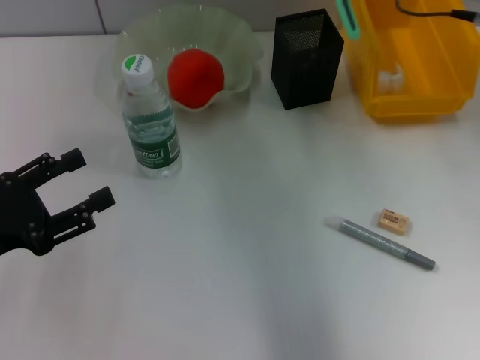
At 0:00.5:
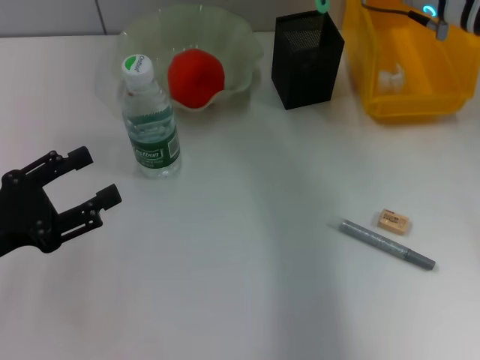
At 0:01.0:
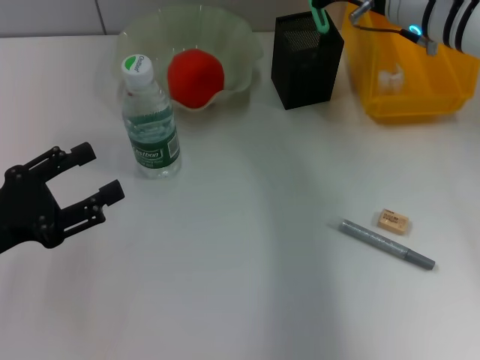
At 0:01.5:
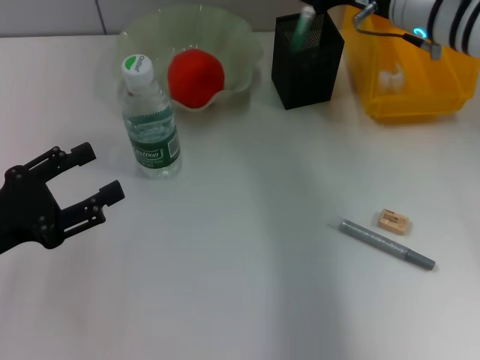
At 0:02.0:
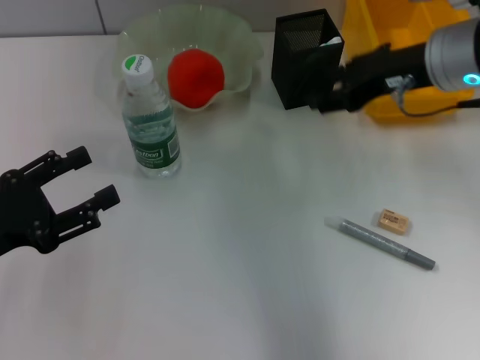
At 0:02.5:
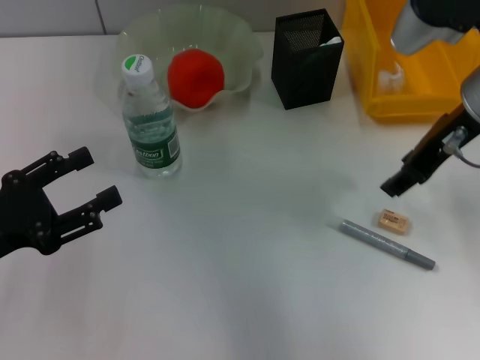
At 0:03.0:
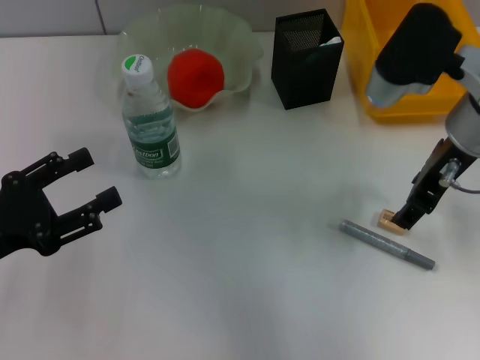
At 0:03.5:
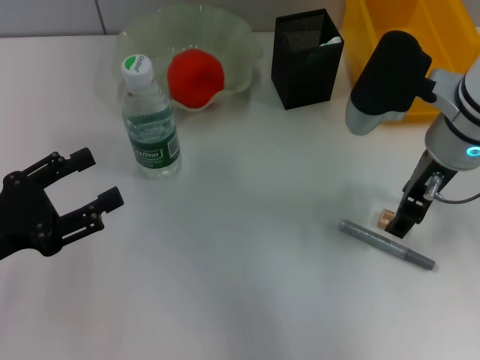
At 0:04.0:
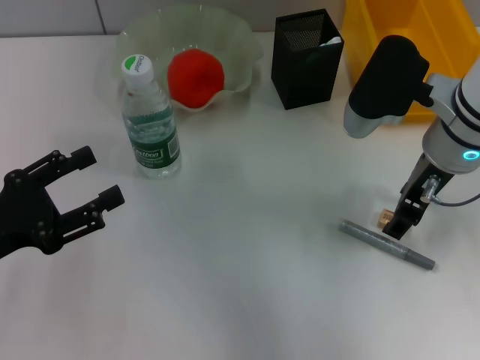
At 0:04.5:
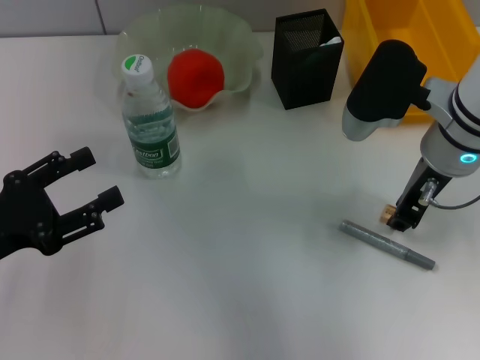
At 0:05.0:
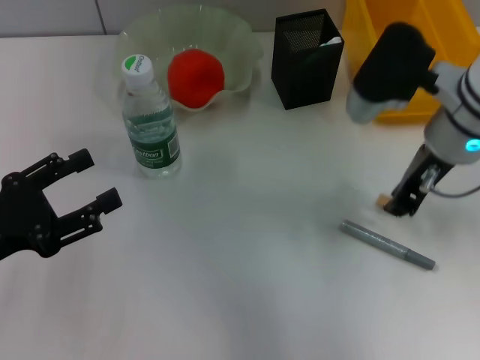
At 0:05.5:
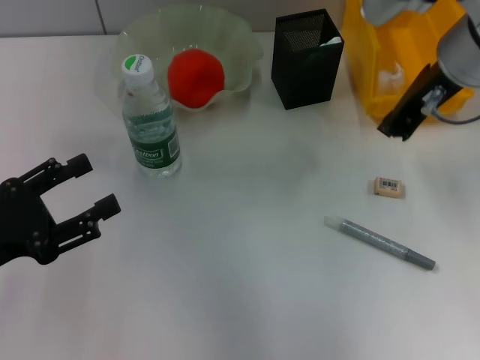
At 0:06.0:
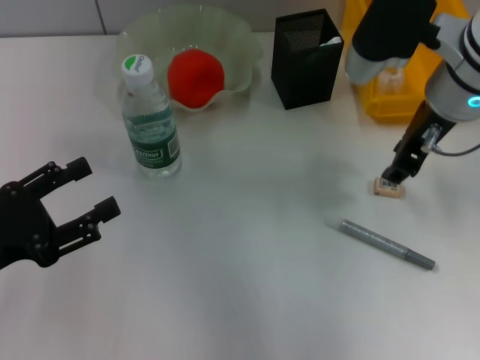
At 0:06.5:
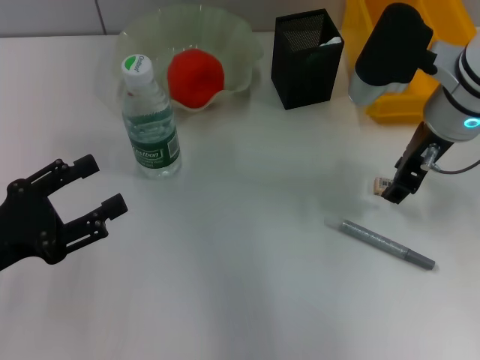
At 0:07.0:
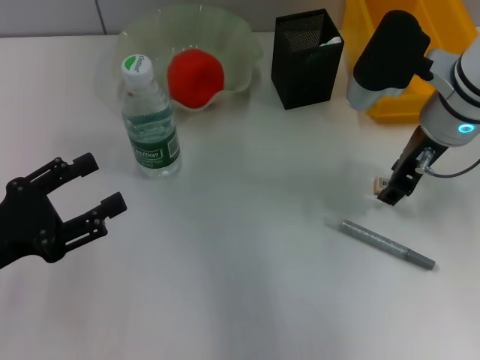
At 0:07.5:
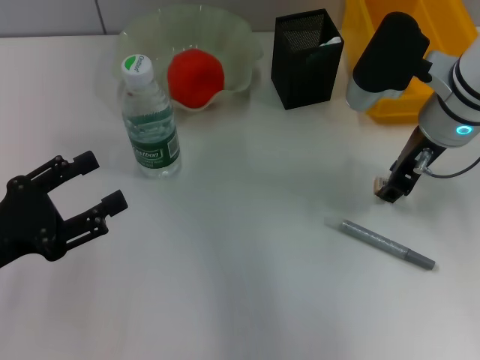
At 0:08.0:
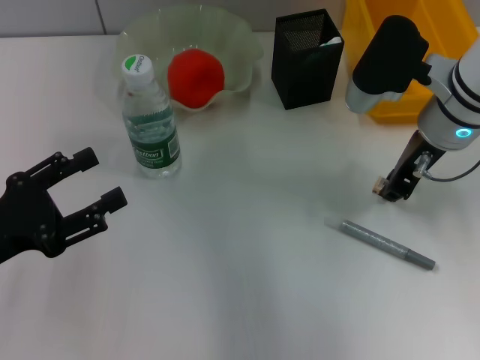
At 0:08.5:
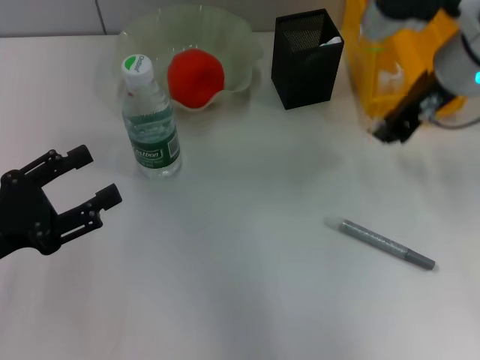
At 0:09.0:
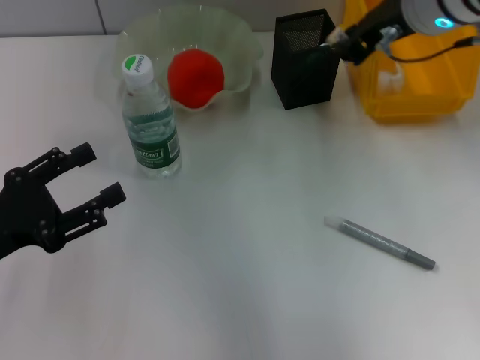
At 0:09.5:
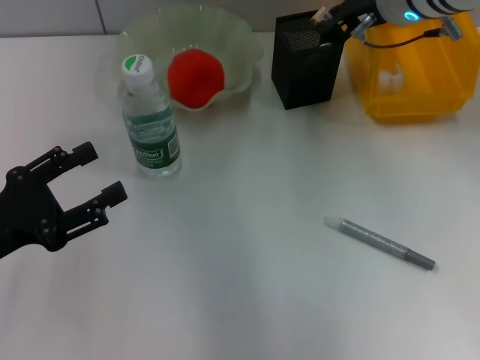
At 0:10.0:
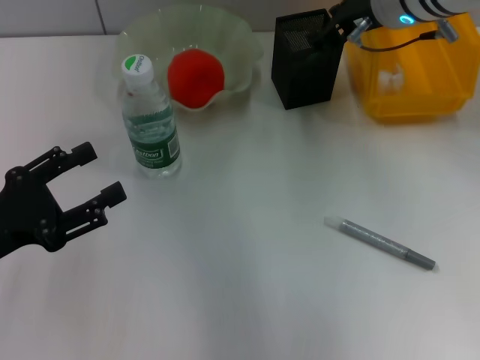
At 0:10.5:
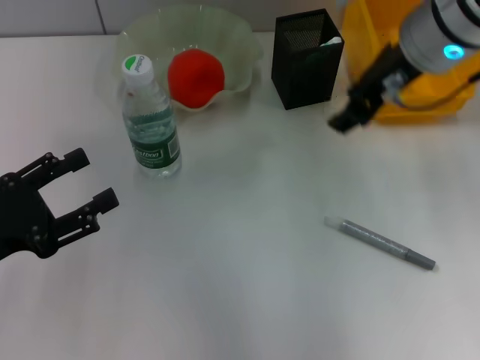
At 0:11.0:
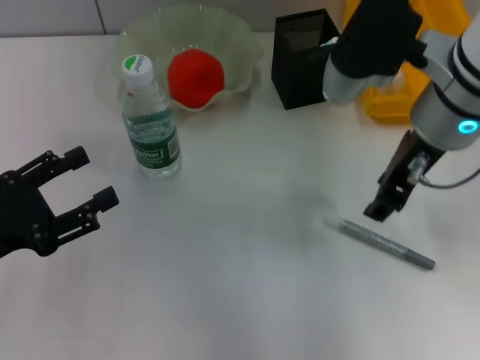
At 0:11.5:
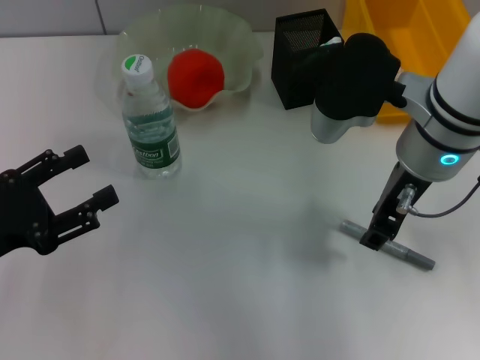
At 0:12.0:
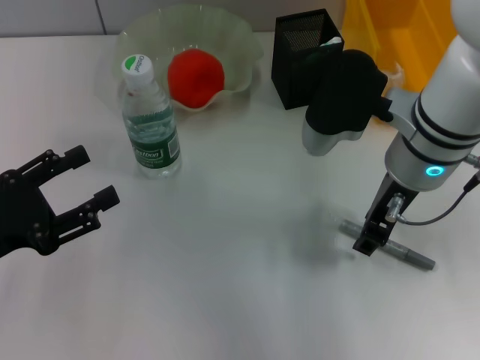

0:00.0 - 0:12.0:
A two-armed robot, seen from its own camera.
Step, 0:00.0 - 0:01.5: Place the blue utility knife into the pen holder with the right hand.
Step, 0:02.0 - 0:08.0: Grab the eraser with the right hand.
Step, 0:08.5 - 0:10.0: Put the eraser into the pen holder with the right hand.
0:00.0 - 0:02.0: The right gripper opens.
0:02.0 - 0:04.0: The right gripper moves roughly 5 cm.
0:04.0 - 0:06.0: The right gripper closes its fingers.
0:06.0 - 0:08.0: The right gripper opens and closes again.
0:08.0 - 0:10.0: The right gripper goes about 10 cm forward and upward.
0:10.0 - 0:12.0: The right gripper moves backward, roughly 10 cm.

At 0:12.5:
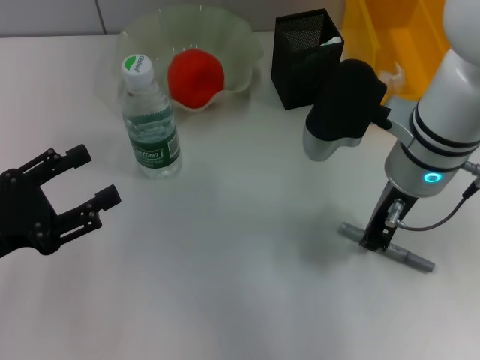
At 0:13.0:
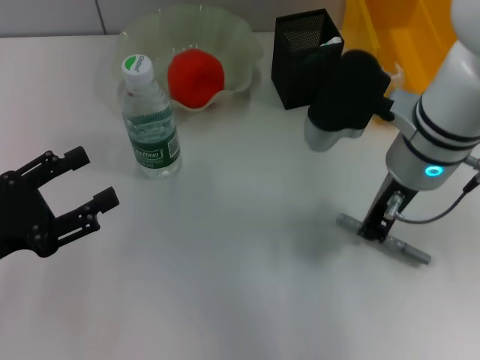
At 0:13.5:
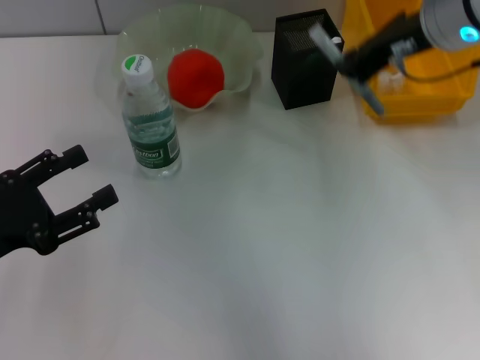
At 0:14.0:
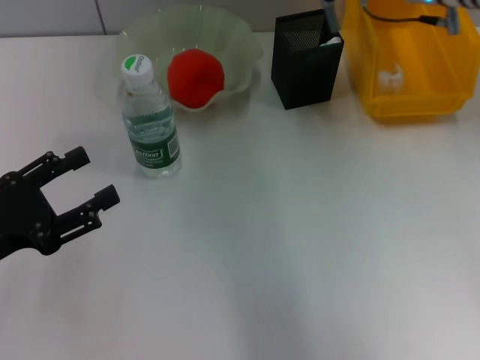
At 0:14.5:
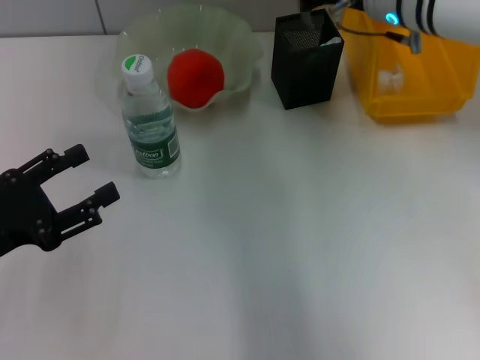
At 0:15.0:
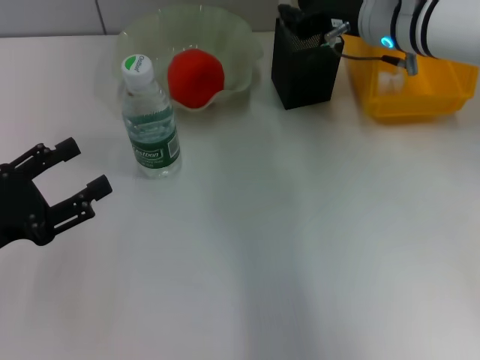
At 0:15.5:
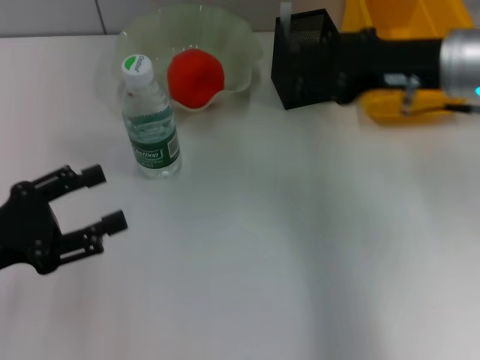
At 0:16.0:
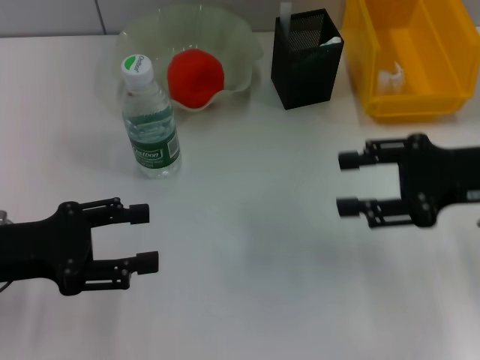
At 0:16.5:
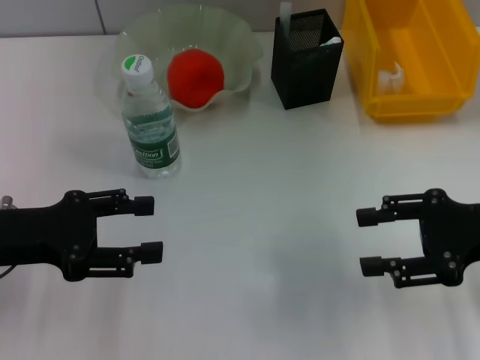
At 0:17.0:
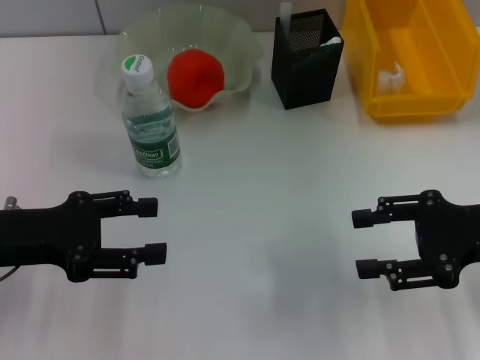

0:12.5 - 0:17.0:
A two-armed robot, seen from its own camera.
Step, 0:13.0 - 0:15.0: Place the gray glue into the pen holder with the right hand.
0:12.5 - 0:14.5: The right gripper travels forward by roughly 10 cm.
0:14.5 - 0:17.0: The left gripper ends up approximately 5 cm from where it was. Meanwhile the right gripper heads backward and to the right, covering about 25 cm, and opens.

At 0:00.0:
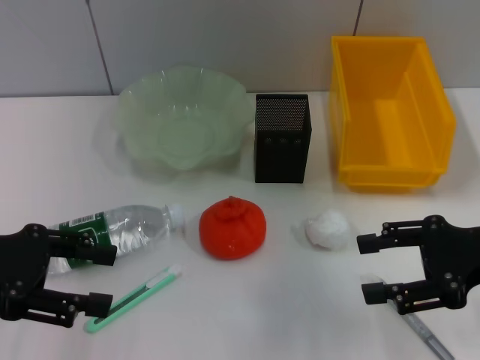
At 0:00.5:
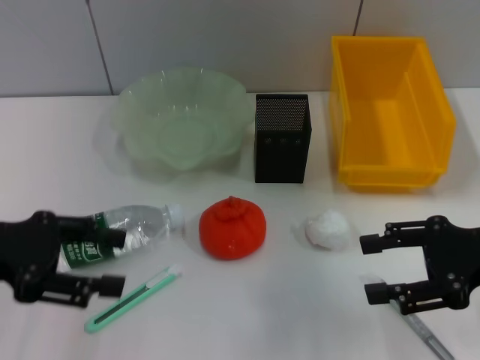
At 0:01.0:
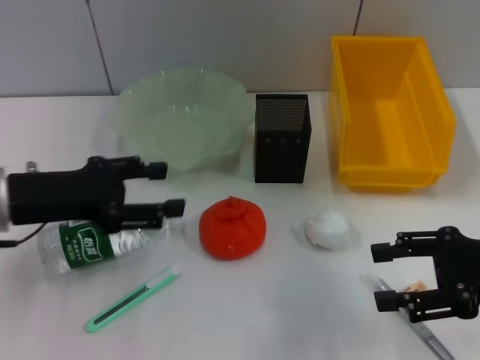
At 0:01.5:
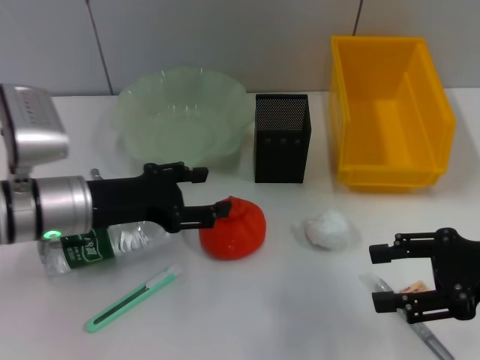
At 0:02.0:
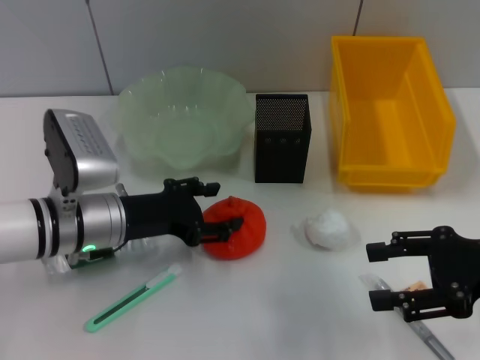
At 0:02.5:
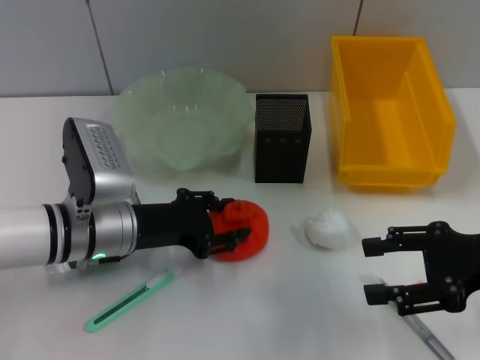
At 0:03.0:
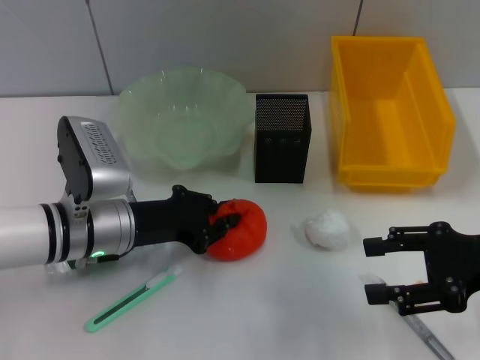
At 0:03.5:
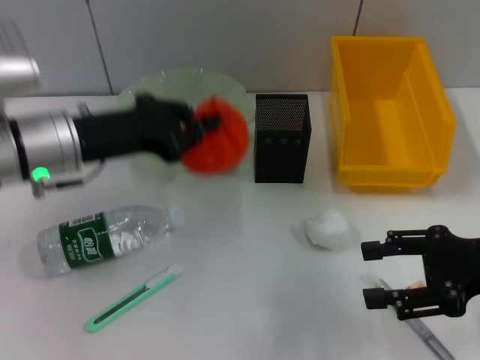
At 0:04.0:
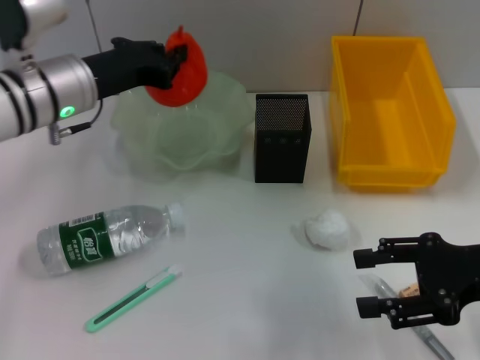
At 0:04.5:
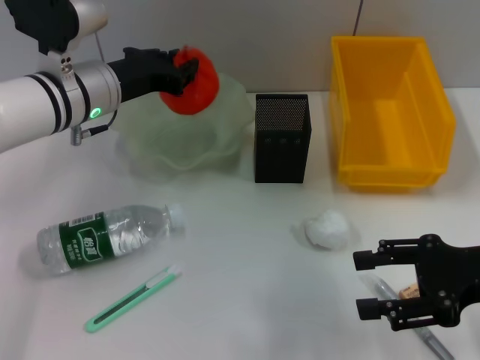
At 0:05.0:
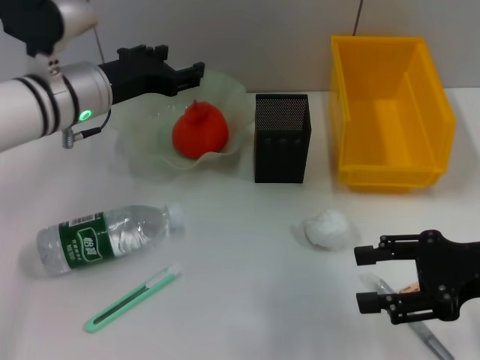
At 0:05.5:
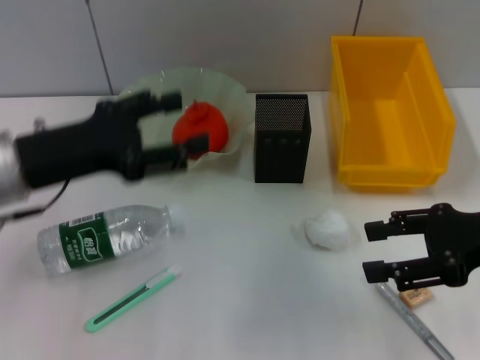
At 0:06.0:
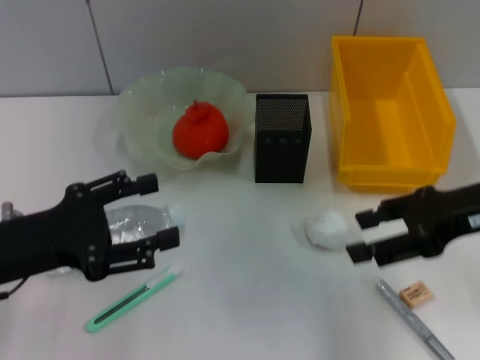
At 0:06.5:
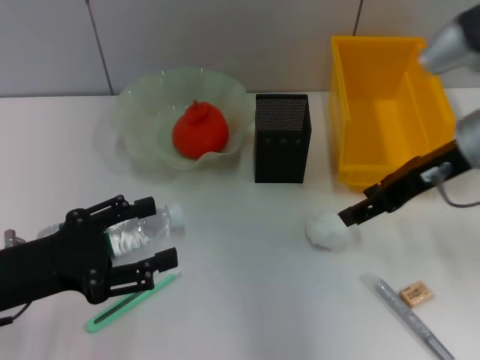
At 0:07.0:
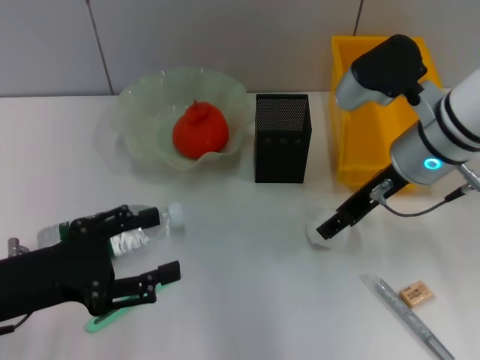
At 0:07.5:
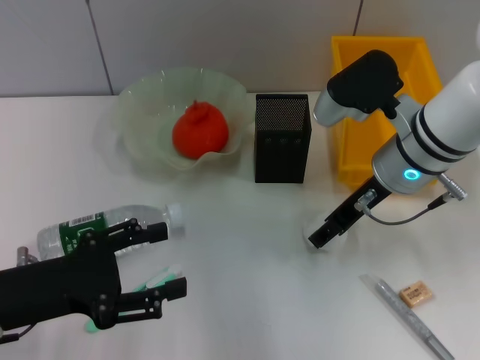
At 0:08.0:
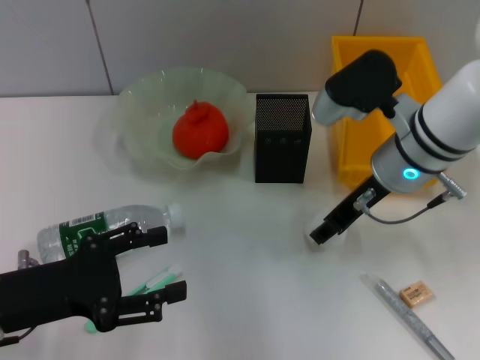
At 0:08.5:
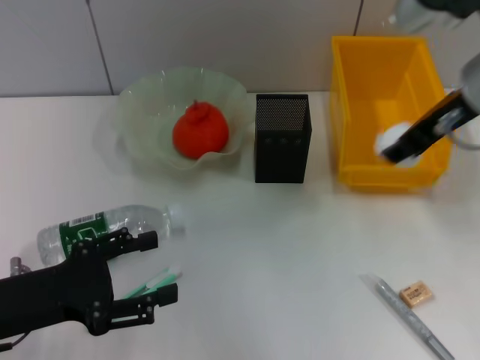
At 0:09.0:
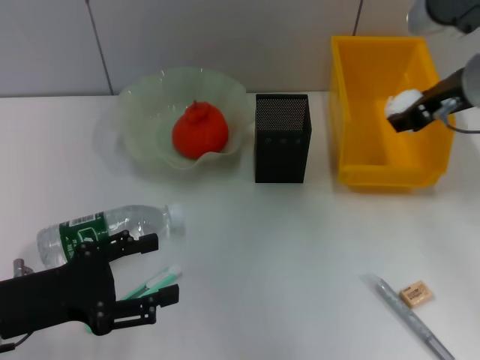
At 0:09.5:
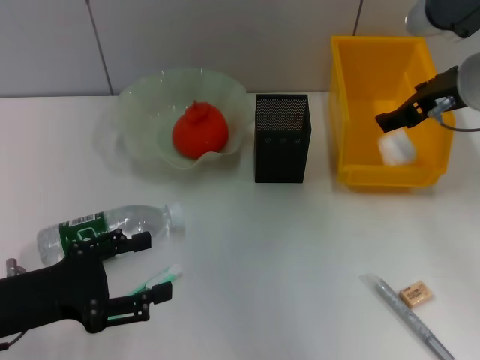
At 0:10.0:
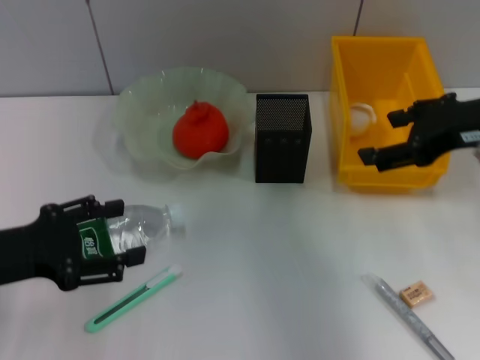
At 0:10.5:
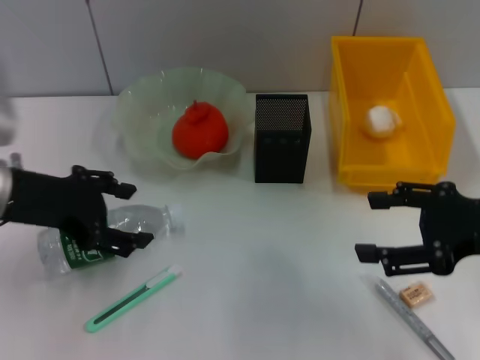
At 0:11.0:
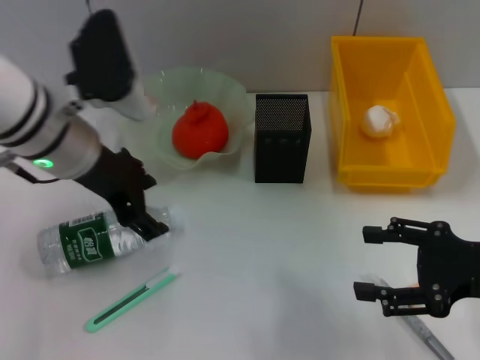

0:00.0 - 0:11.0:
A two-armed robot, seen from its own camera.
Step, 0:00.0 - 0:03.0: Grab the orange with the left hand.
Step, 0:03.5 - 0:05.0: Place the orange into the fruit bowl with the left hand.
Step, 0:05.5 - 0:07.5: Grab the paper ball with the right hand.
Step, 0:08.0 - 0:09.5: Place the paper ball into the trash can with the right hand.
0:00.0 - 0:02.0: The left gripper moves to the right, downward and forward, roughly 15 cm.
0:02.0 - 0:03.5: The left gripper heads upward, covering roughly 10 cm, and closes its fingers.
0:03.5 - 0:05.5: The left gripper ends up roughly 5 cm from where it was, and opens up.
0:05.5 - 0:07.5: The right gripper heads to the left and forward, covering roughly 15 cm, while the left gripper shifts about 10 cm backward and downward.
0:07.5 - 0:09.0: The right gripper is displaced upward and to the right by about 10 cm.
0:09.0 - 0:11.0: The left gripper goes approximately 20 cm forward, upward and to the right. Meanwhile the right gripper goes roughly 20 cm backward, downward and to the right, and opens up.
